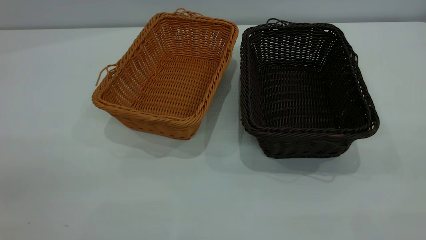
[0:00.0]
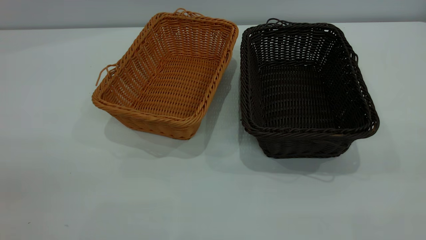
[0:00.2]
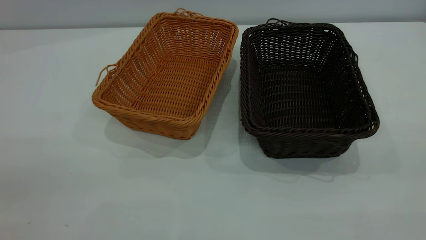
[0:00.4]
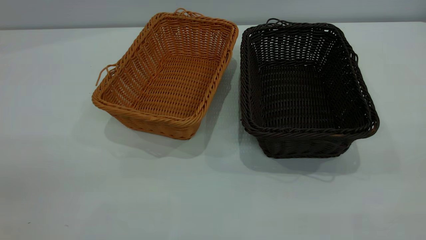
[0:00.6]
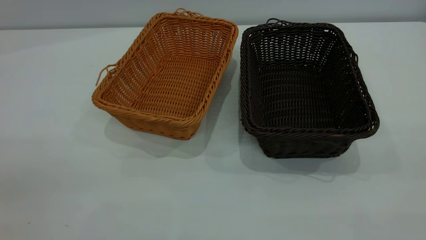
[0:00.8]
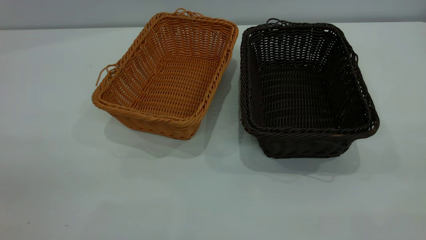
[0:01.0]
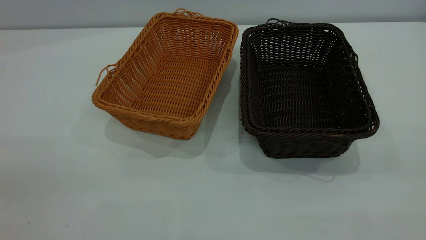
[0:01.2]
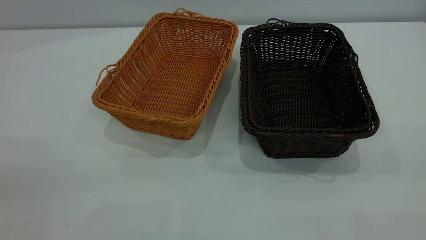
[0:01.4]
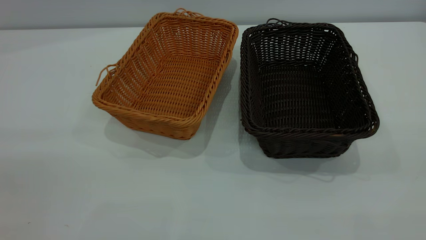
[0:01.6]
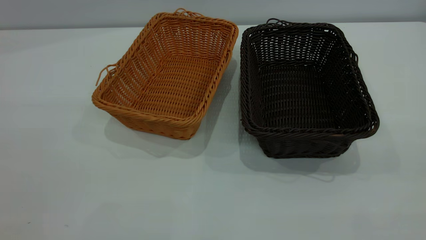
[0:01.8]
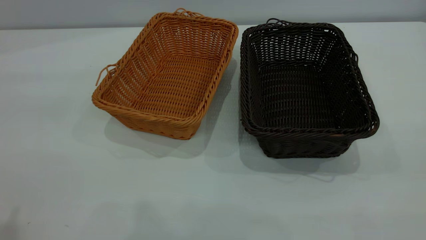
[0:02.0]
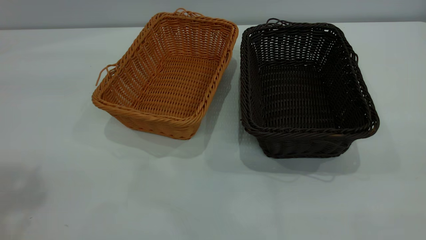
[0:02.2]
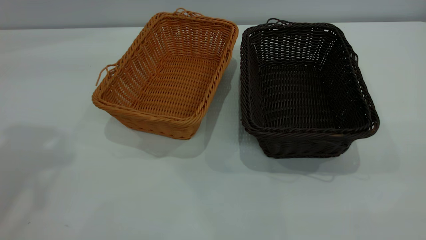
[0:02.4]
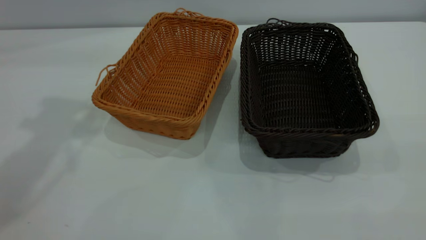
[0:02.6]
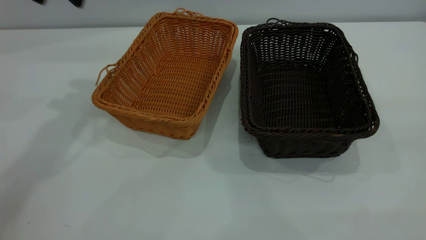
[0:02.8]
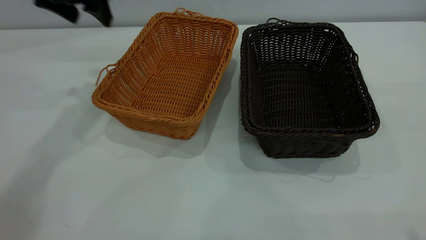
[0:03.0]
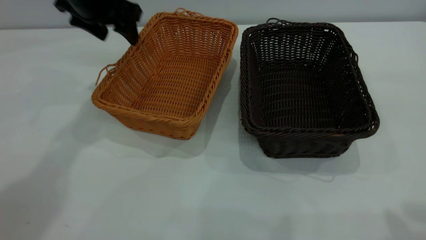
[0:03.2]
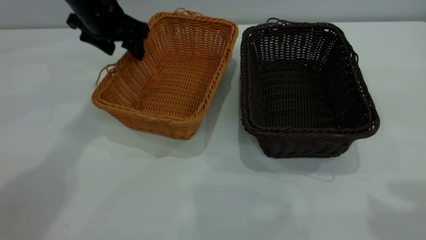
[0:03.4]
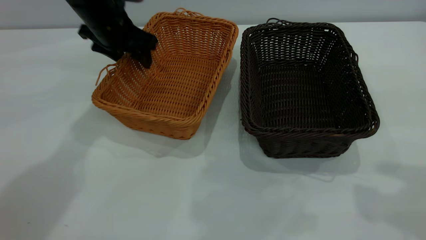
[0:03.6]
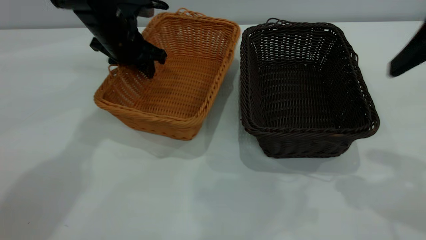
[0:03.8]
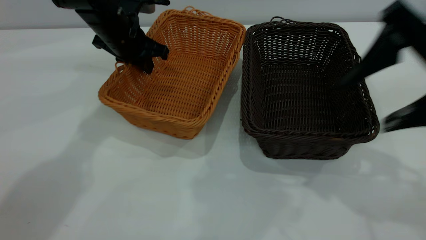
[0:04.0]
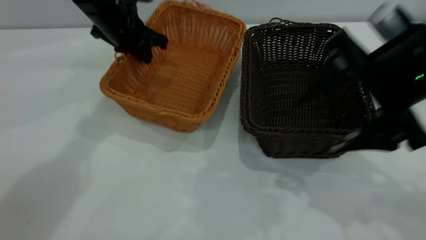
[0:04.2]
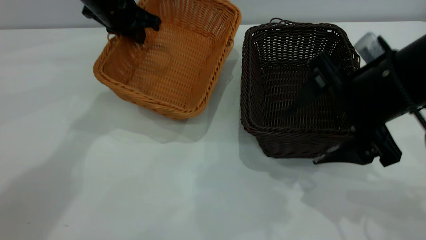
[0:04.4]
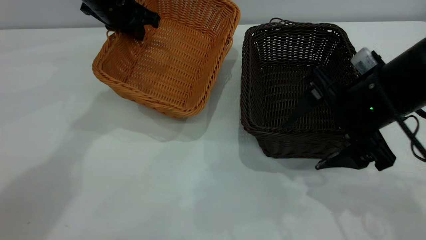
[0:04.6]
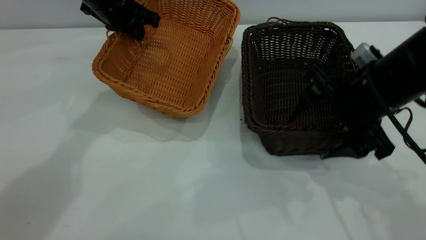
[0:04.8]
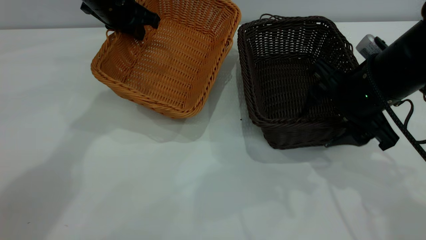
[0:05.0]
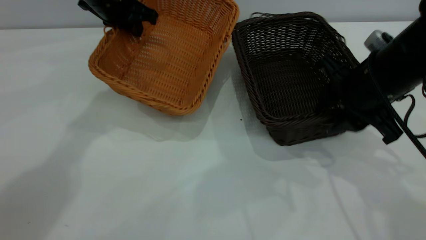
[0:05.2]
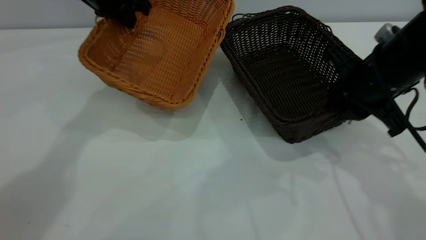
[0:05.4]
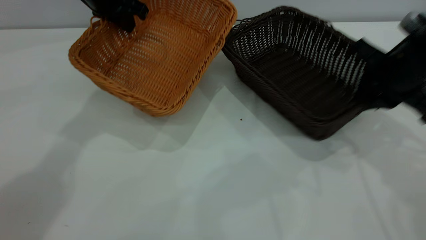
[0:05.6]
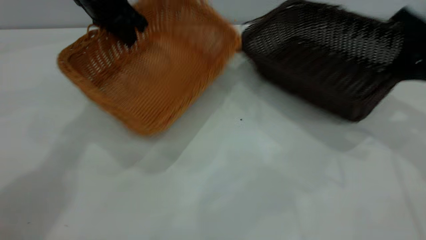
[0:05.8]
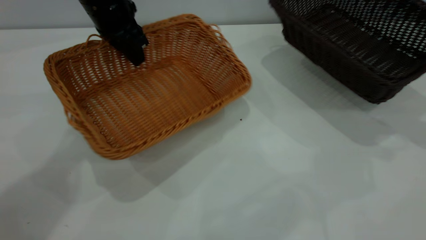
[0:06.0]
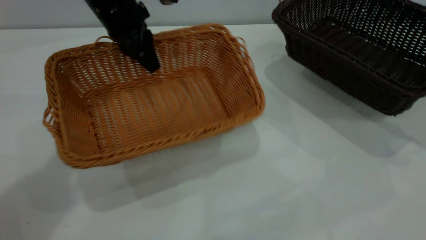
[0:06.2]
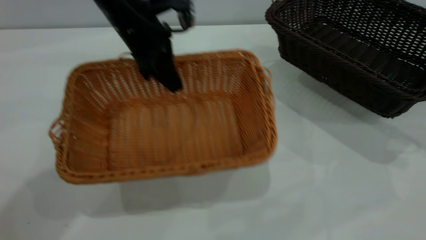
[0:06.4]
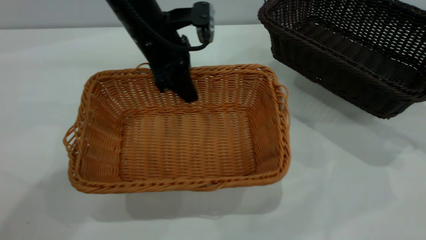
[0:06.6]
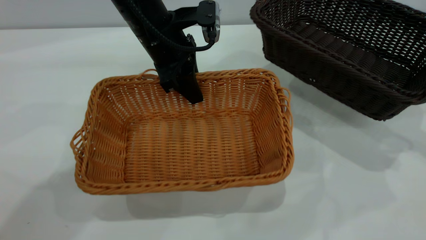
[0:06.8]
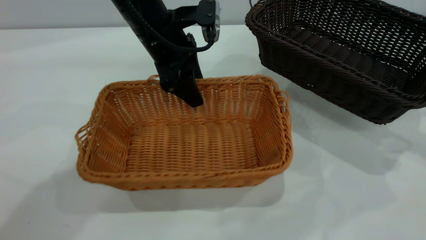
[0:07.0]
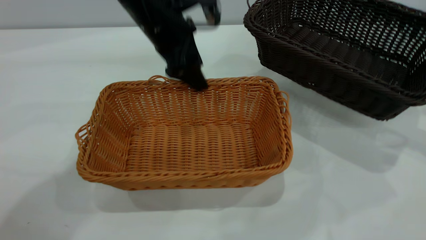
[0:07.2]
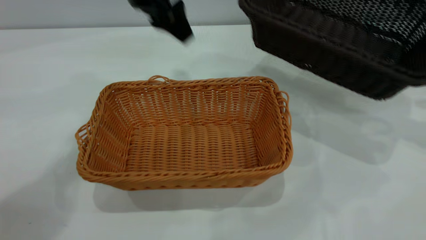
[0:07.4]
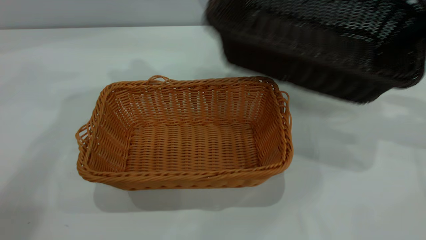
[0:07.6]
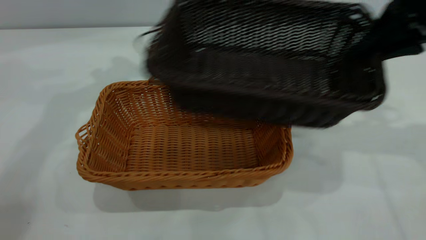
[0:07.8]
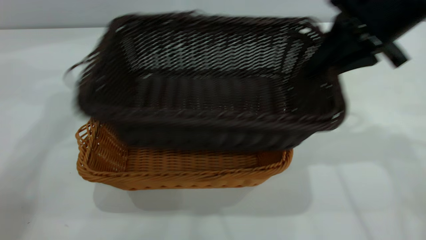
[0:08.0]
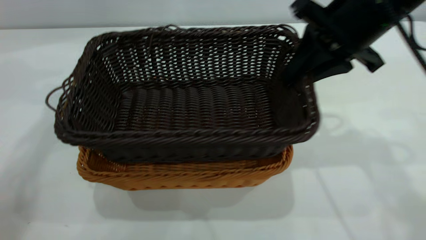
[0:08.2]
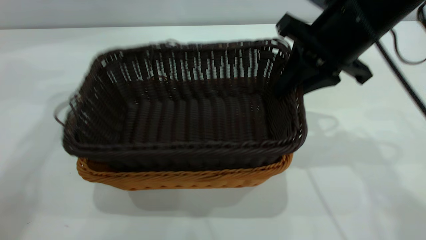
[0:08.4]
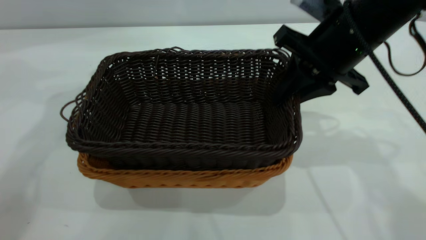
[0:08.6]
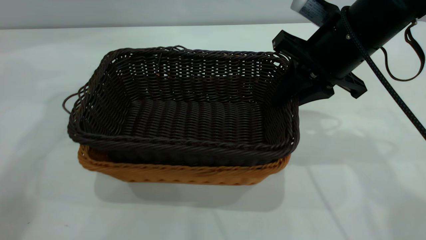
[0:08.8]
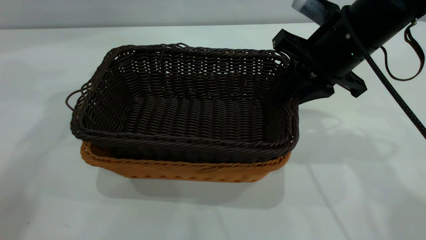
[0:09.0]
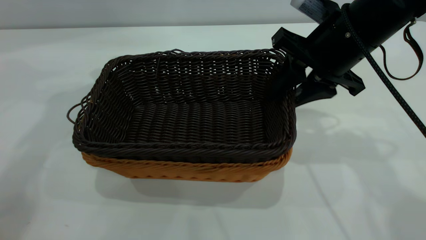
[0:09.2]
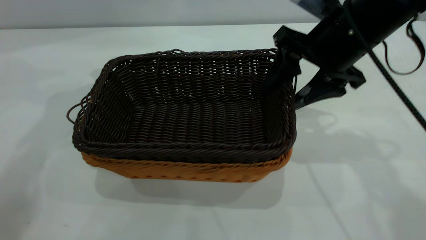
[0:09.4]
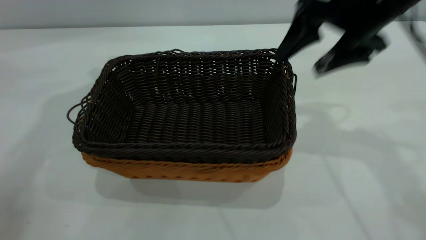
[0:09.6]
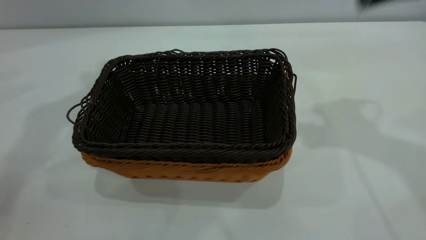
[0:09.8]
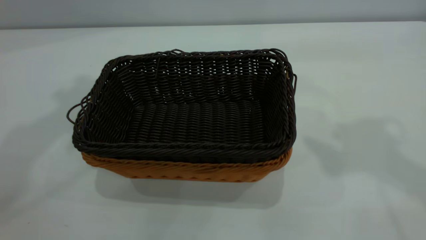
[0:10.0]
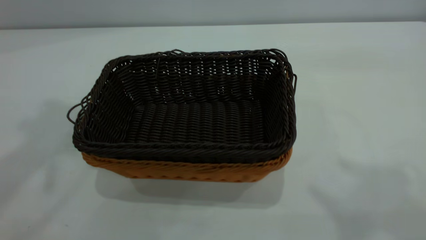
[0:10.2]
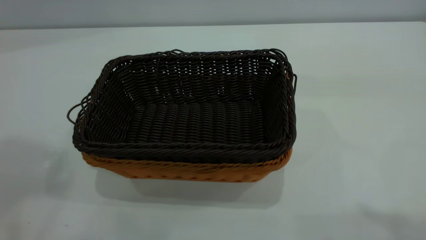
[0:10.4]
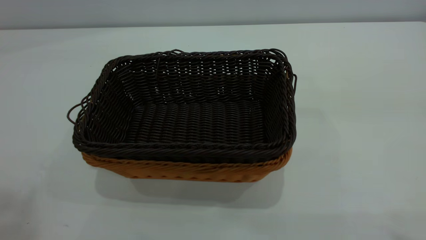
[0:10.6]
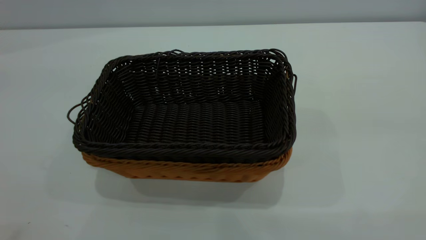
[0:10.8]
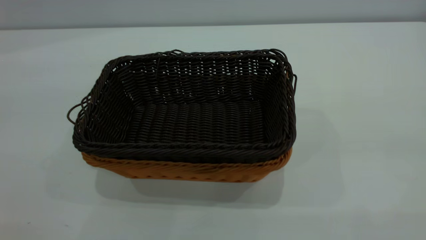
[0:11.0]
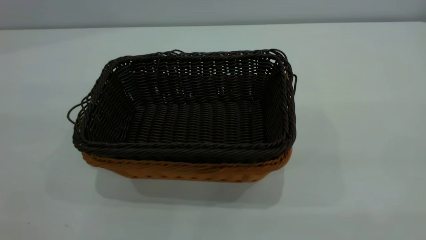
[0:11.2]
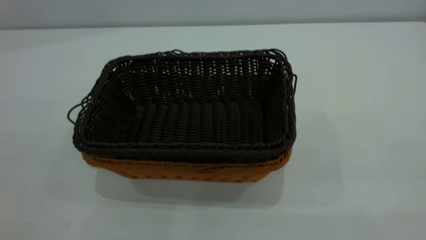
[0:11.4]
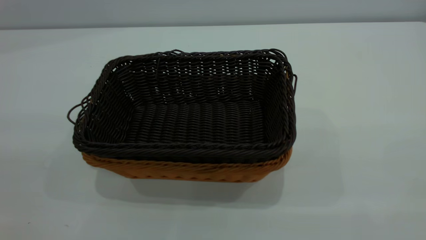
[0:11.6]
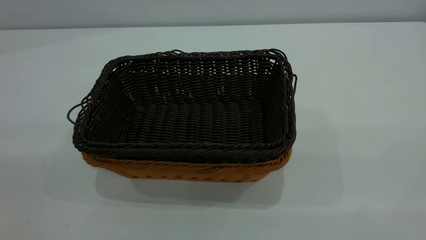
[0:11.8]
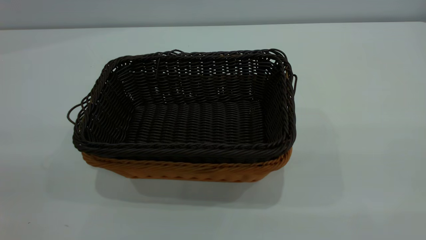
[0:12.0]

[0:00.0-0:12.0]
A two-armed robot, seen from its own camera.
Task of the whole recording: the left gripper grasp the brown basket and place it in the center of the table, the right gripper grasp the black basket and place it inside the brown one.
Step, 0:00.0 to 0:05.8: Pick up the light basket with the right gripper.
Step, 0:06.0 to 0:07.2: Place the light-colored basket in the center.
Step, 0:07.4 to 0:09.4: Place the dark basket on top of the light basket.
0:01.6 to 0:03.0: The left gripper goes about 40 cm forward.
0:03.0 to 0:04.4: The left gripper shifts roughly 5 cm downward, and closes up, while the right gripper goes roughly 30 cm downward, forward and to the left.
0:04.4 to 0:06.0: The right gripper moves to the right, approximately 20 cm, and closes its fingers.
0:06.0 to 0:07.6: The right gripper moves approximately 5 cm. The left gripper moves upward, approximately 10 cm, and opens.
0:07.6 to 0:09.0: The right gripper shifts roughly 15 cm to the left.
0:09.0 to 0:10.4: The two grippers go roughly 40 cm upward and backward. The right gripper opens up.

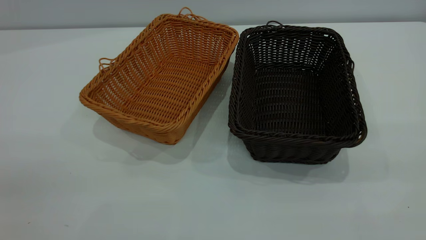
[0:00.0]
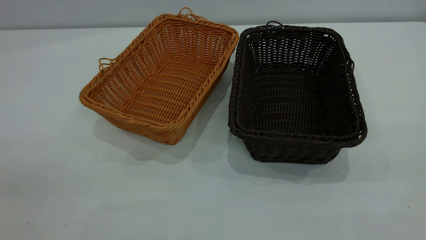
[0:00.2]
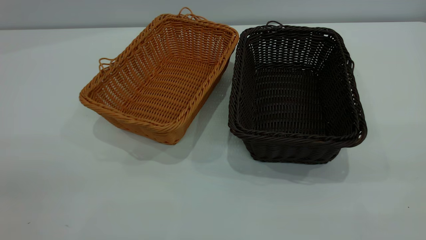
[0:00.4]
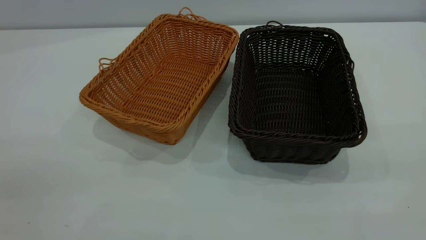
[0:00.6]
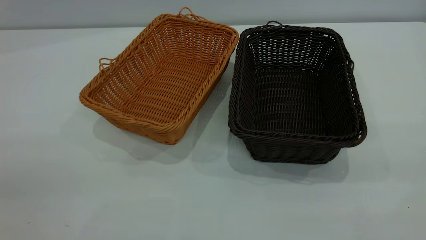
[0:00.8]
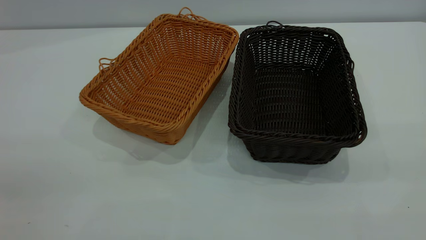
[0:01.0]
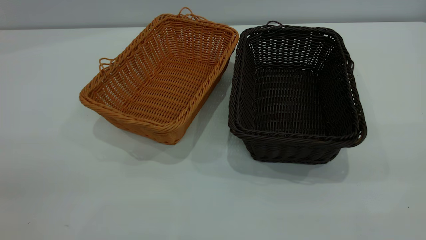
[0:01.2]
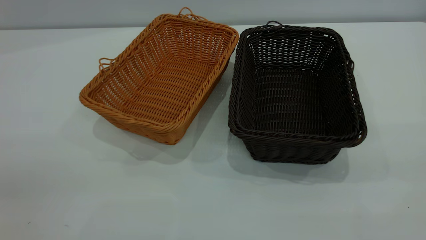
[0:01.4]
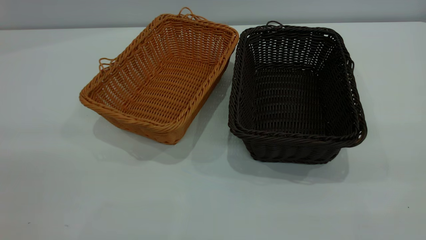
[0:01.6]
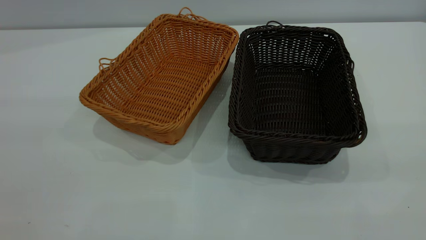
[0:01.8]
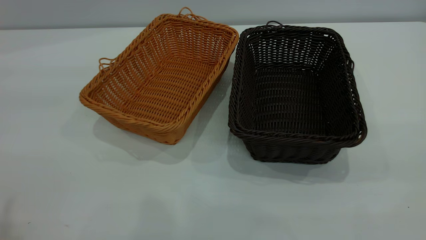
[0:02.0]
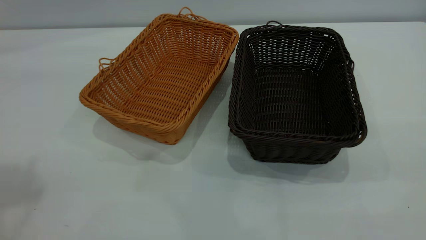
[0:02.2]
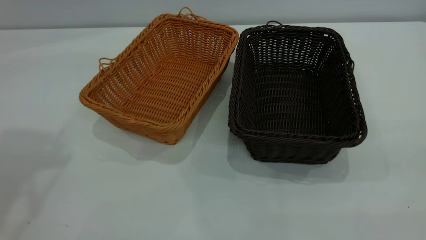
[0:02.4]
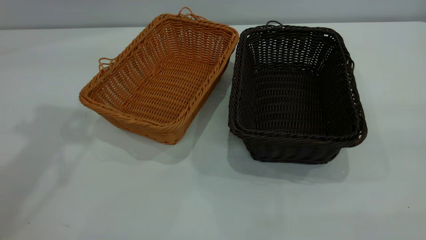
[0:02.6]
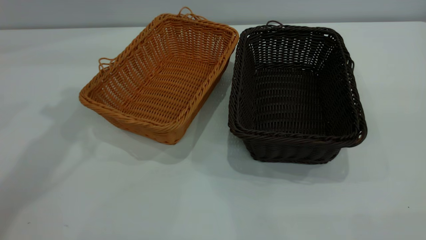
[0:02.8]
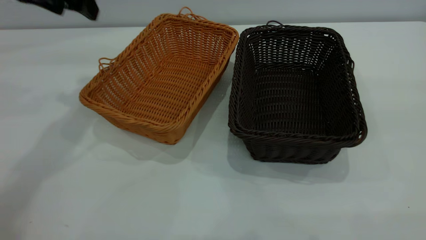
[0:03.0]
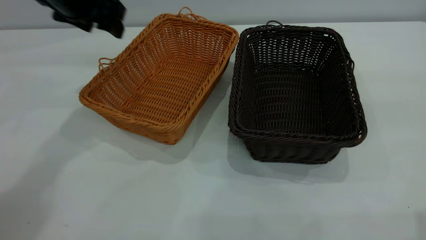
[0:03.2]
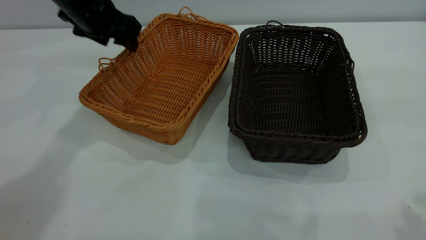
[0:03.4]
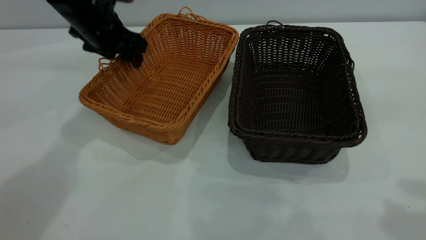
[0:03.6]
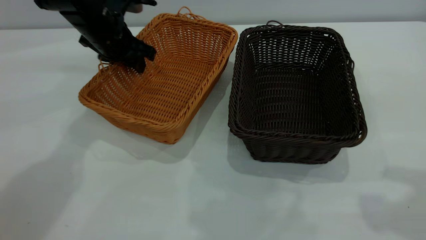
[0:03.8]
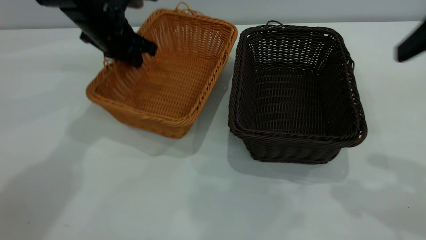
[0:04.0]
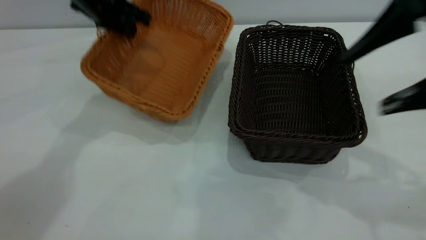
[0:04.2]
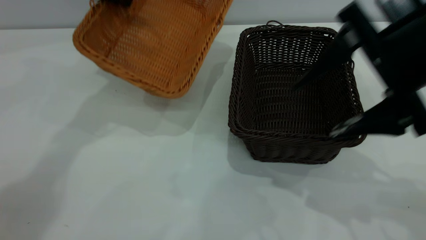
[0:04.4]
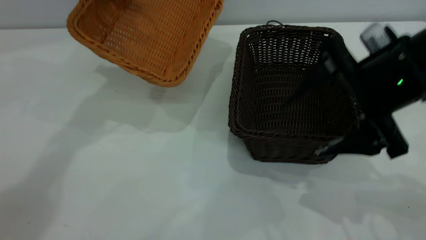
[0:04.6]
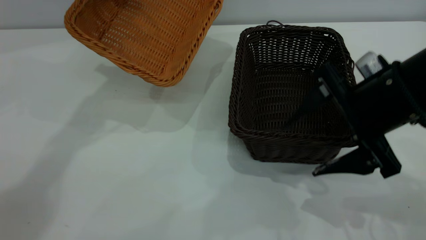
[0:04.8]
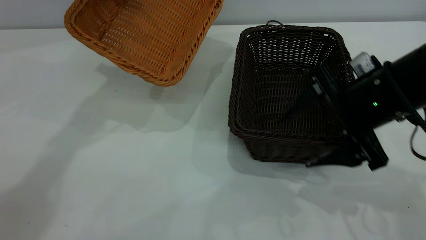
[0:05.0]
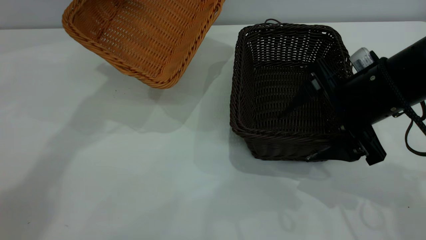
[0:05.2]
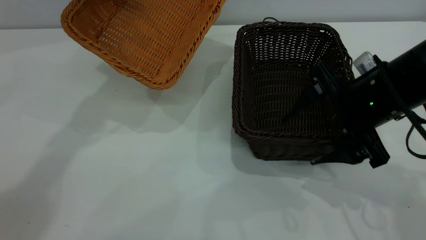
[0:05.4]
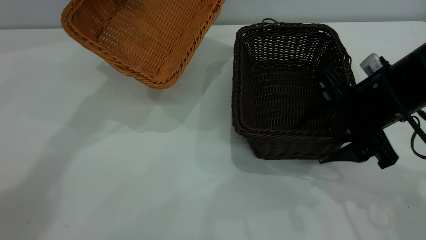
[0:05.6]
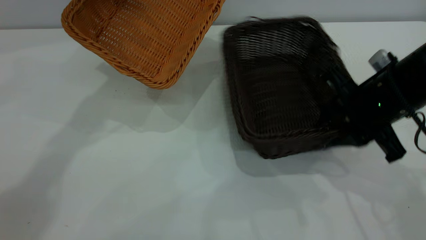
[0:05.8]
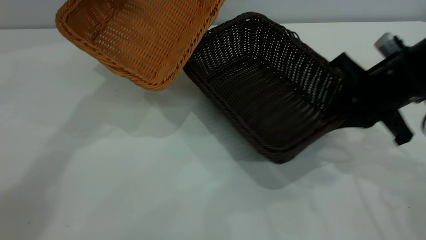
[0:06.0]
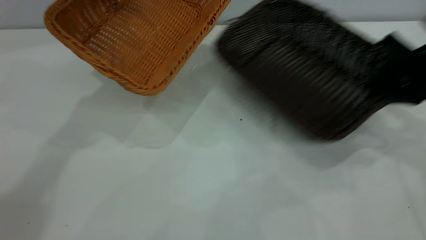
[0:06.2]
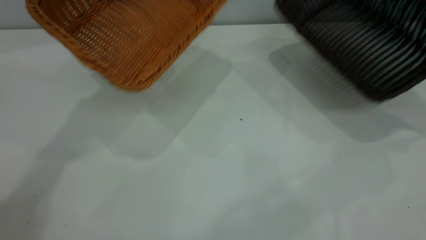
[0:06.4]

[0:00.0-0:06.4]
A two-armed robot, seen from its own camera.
Task of the whole recording: the left gripper grasp the brown basket and place it in the center of the table, the right gripper grasp the black basket and place it inside the brown one.
Step, 0:00.0 to 0:06.2: Pick up the light basket with the right gripper.
0:01.6 to 0:03.2: The left gripper moves forward and downward, roughly 50 cm.
0:03.2 to 0:04.8: The right gripper shifts approximately 25 cm downward, forward and to the left; the left gripper travels upward by roughly 5 cm, and closes.
0:04.8 to 0:06.4: The right gripper heads to the right and forward, covering about 20 cm, and closes its fingers.
